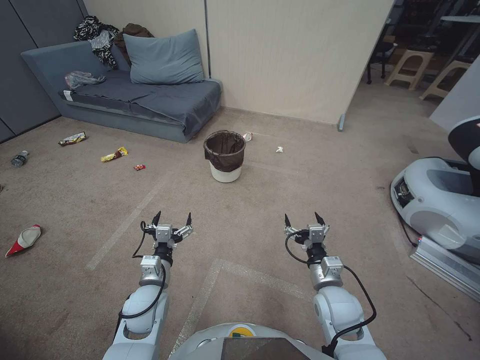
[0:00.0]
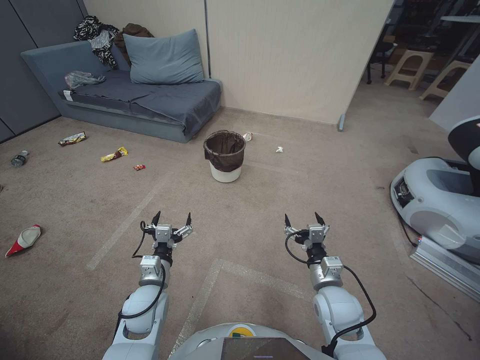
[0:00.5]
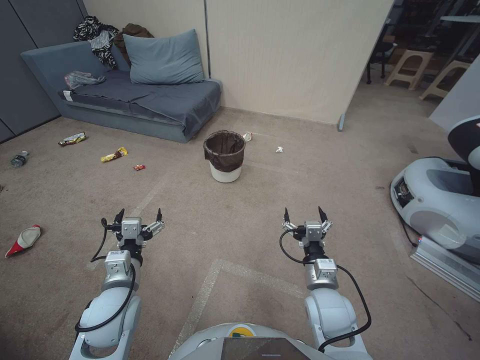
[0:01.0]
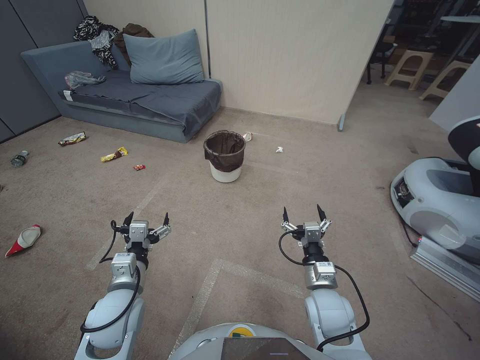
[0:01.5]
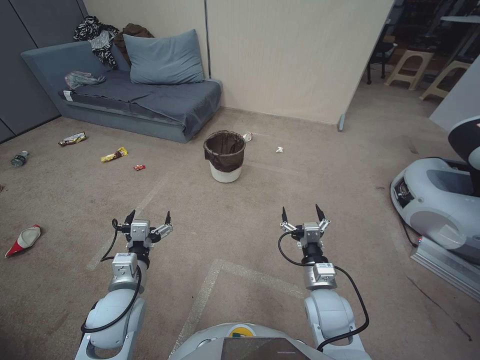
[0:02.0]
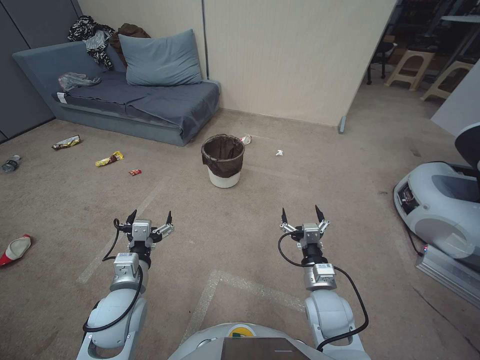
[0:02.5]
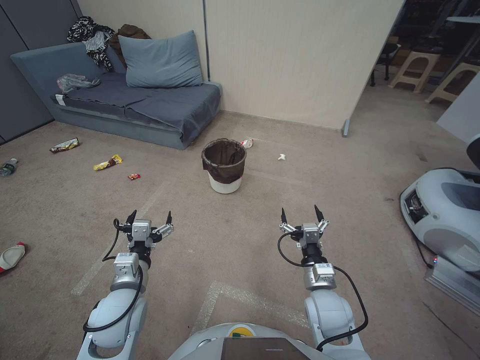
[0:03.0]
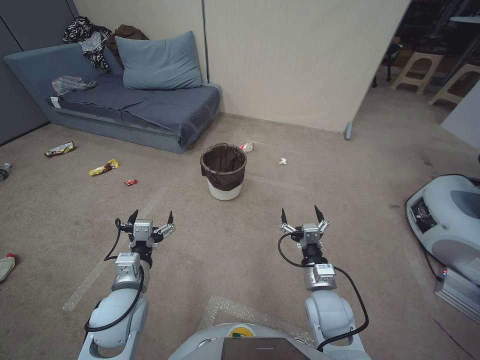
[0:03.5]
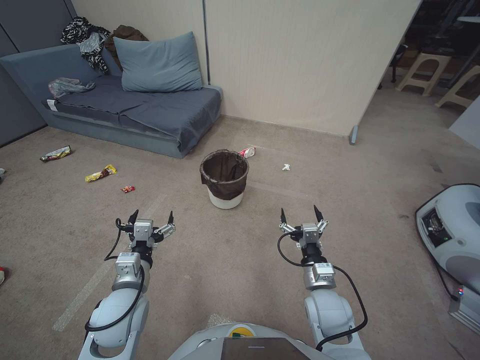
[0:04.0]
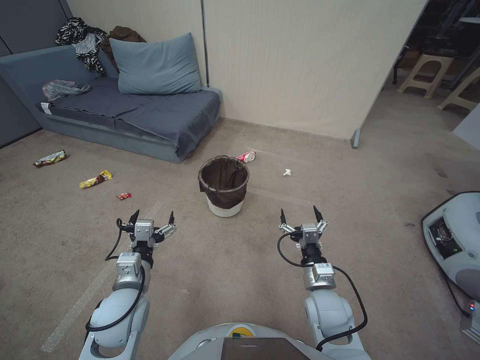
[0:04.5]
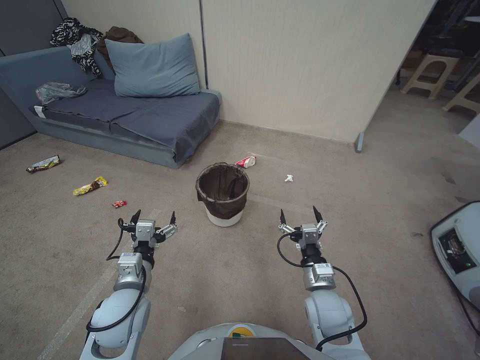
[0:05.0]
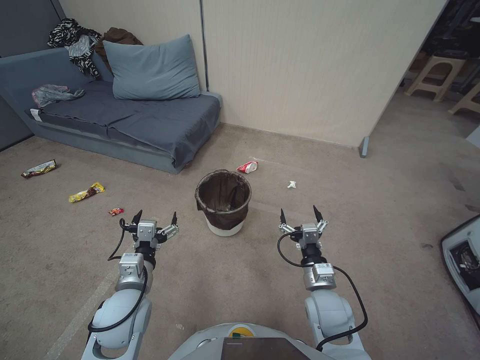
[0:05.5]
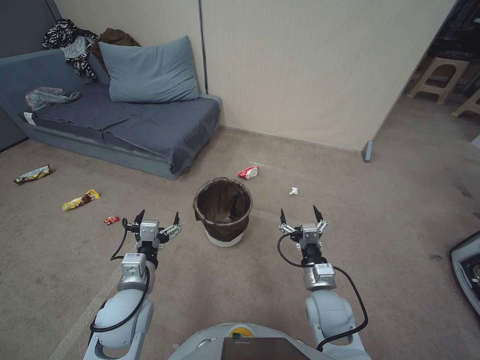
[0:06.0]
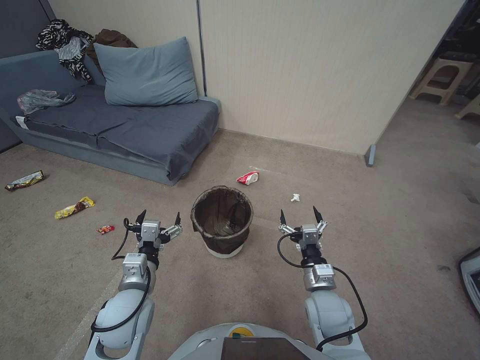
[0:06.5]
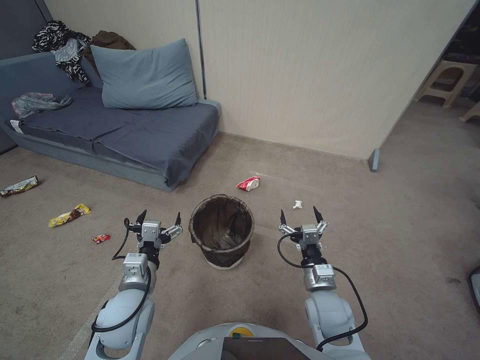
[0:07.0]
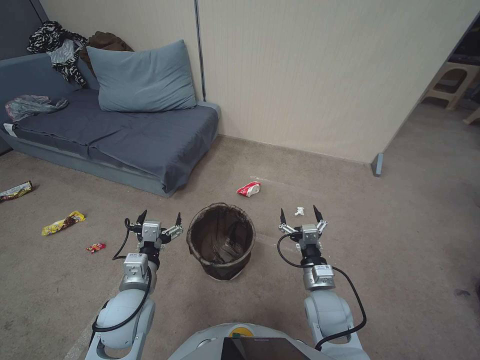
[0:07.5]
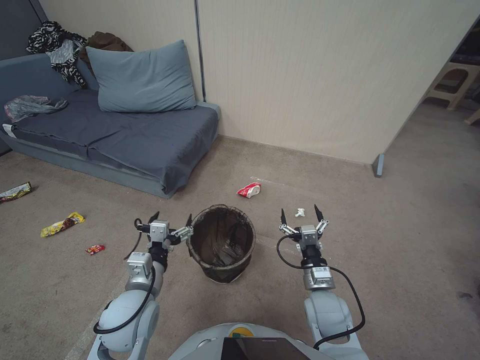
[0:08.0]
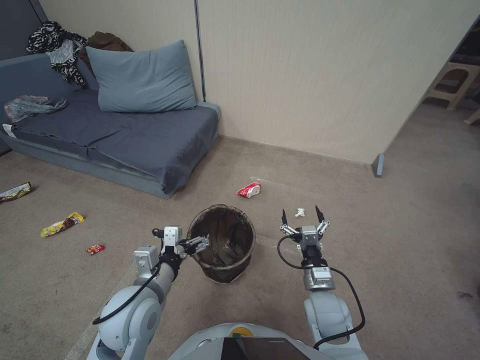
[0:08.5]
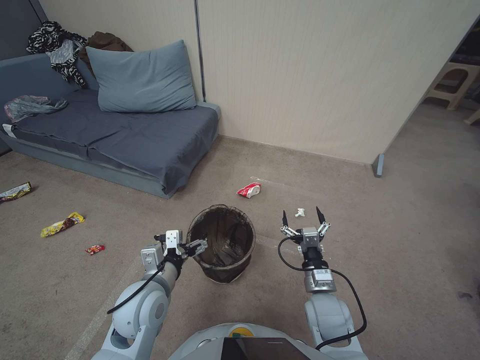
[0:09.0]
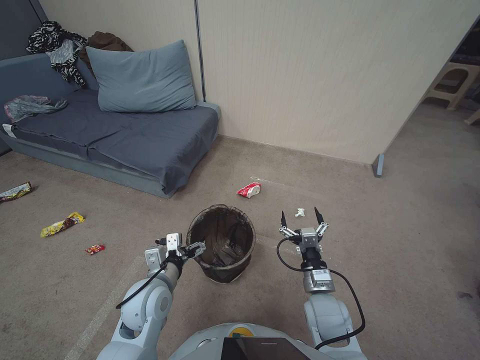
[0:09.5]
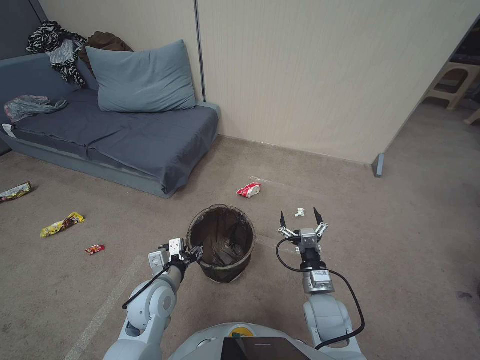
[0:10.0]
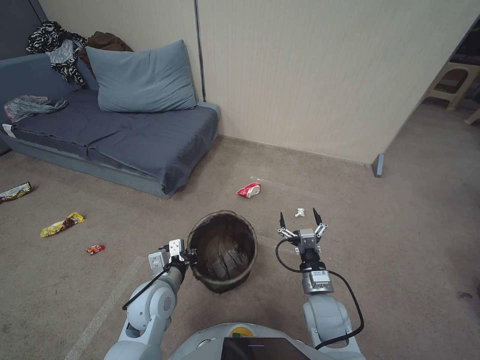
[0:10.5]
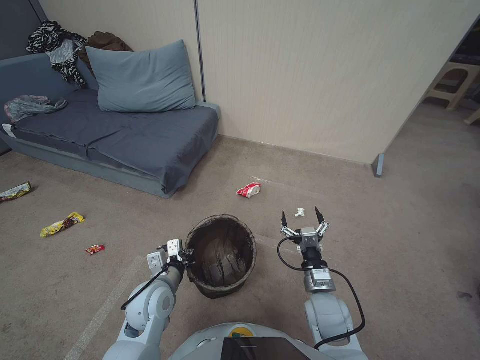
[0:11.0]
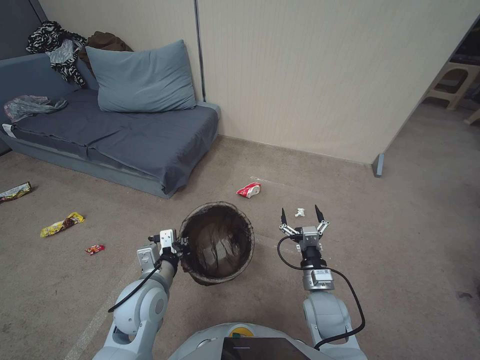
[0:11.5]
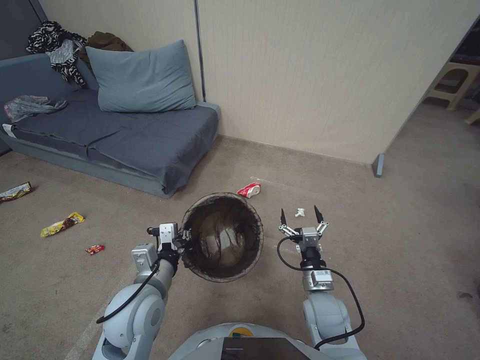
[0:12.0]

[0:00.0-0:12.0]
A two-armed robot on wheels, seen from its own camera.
Task of the whole recording: Pick up the trash bin, then pick up the garbage from the floor and place it into the trash bin.
2.0 to 4.0 s: Both grippers stay about where they are.
6.0 to 8.0 s: Both grippers stay about where they are.
8.0 to 10.0 s: The left gripper ends up roughly 5 cm from where it was, and closes.
10.0 to 12.0 s: The left gripper goes some 10 cm upward, and closes.

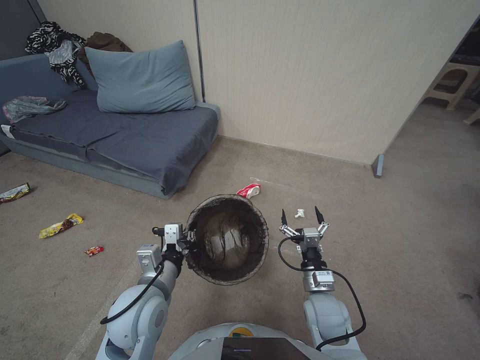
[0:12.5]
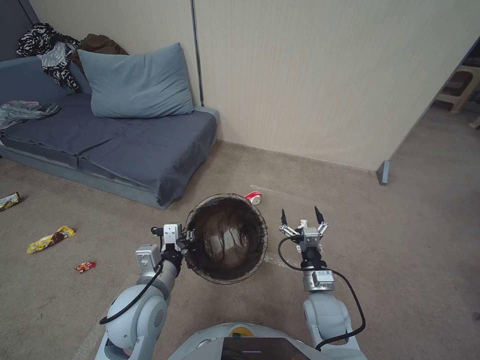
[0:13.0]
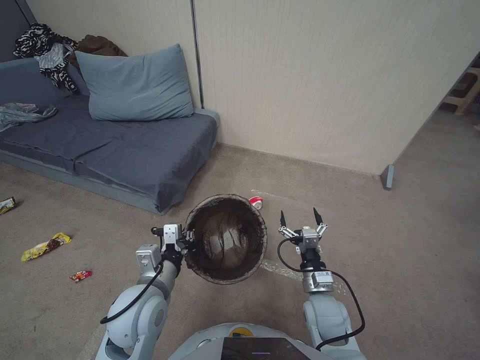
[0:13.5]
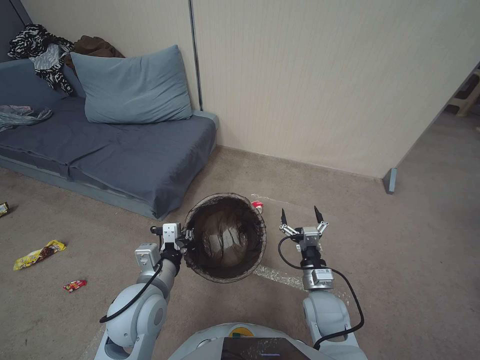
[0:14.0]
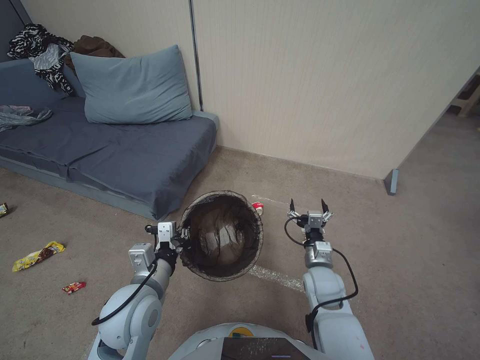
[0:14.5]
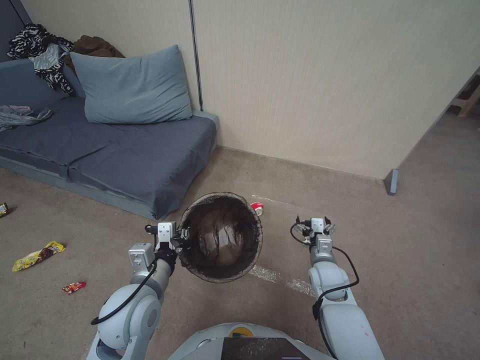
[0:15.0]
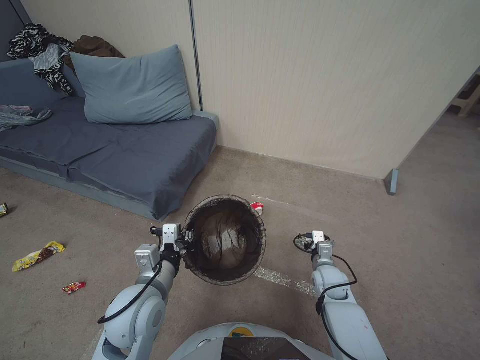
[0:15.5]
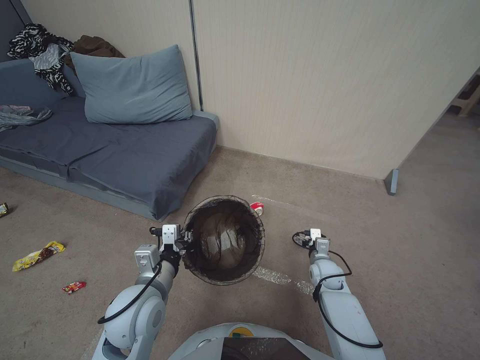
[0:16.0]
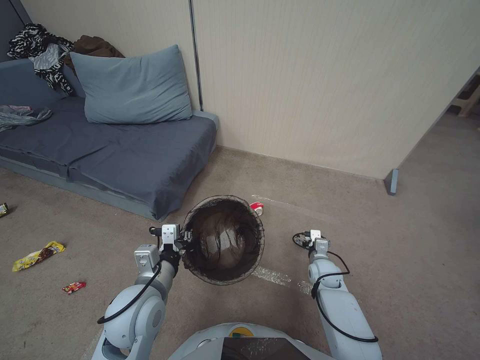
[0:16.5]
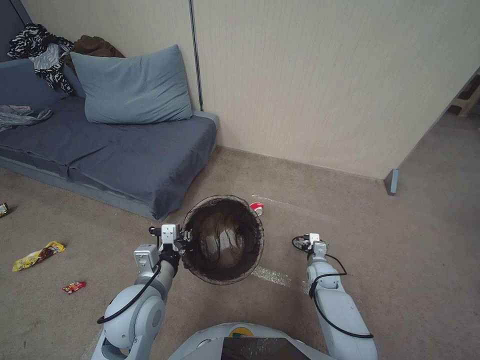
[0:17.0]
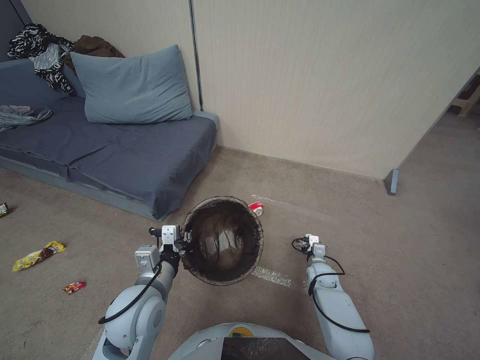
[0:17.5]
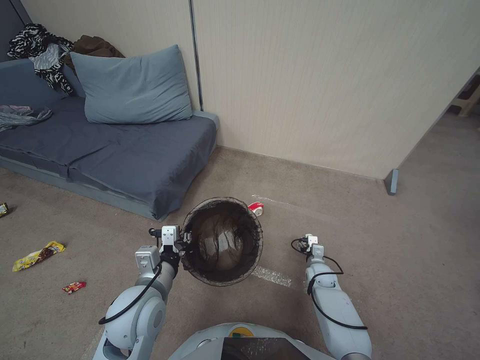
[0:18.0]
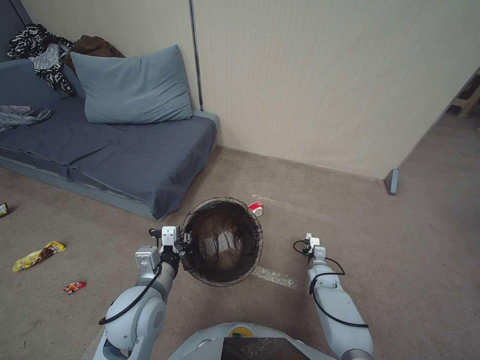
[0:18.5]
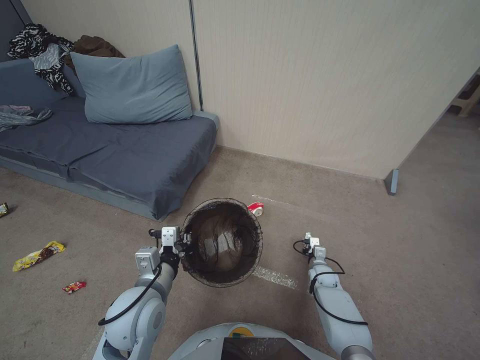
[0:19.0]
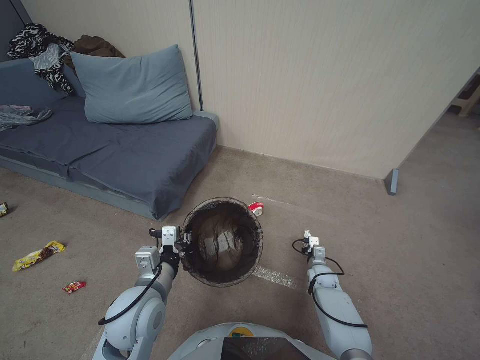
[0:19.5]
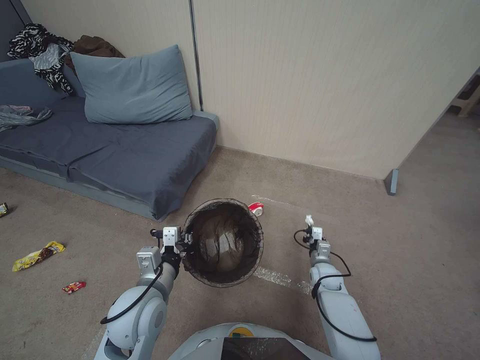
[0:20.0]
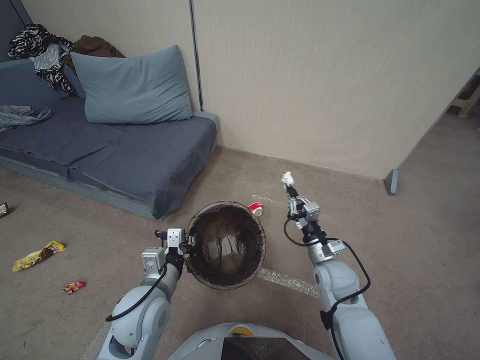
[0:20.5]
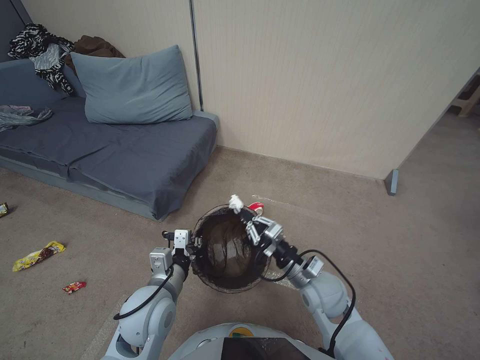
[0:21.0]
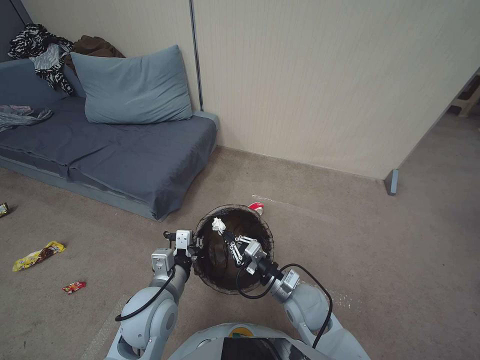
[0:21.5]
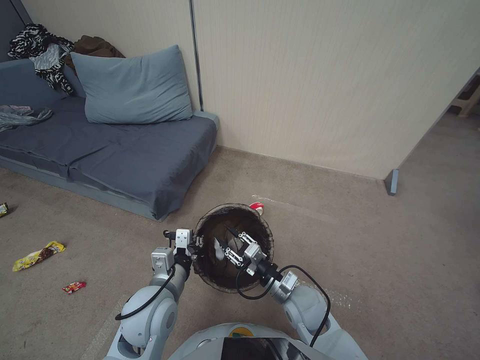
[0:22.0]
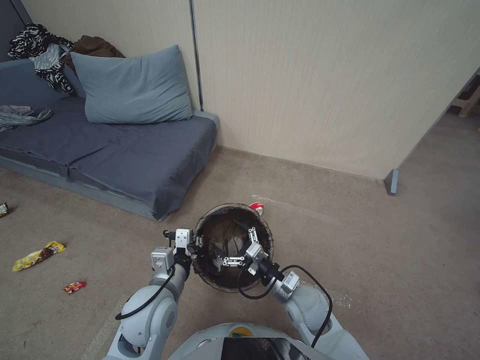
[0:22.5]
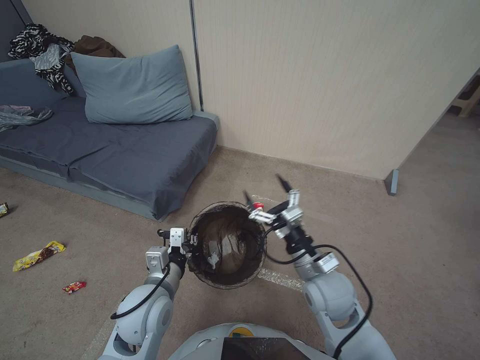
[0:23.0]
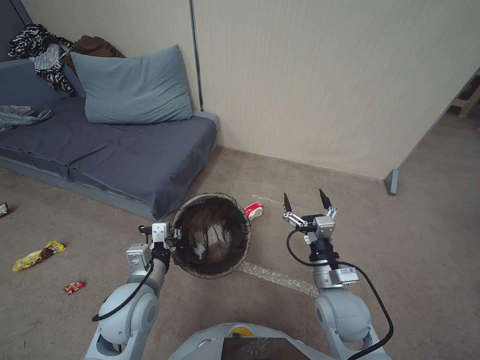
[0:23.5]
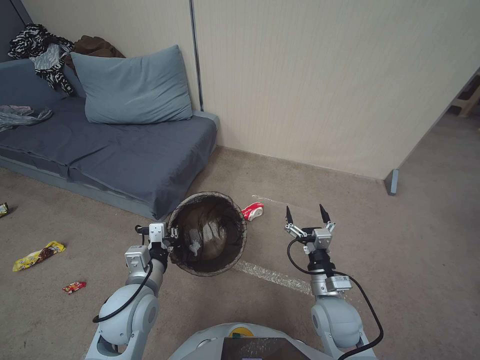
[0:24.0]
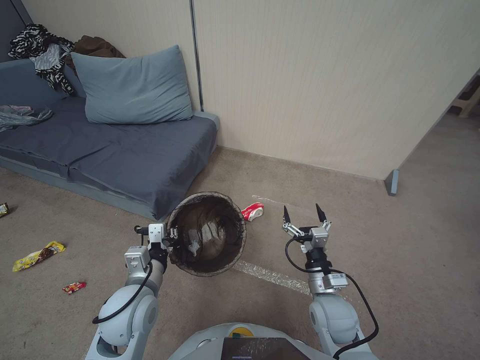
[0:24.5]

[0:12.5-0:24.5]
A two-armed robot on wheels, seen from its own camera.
Task of the whole recording: Pick up the trash bin, then pick up the garbage from the floor and place it into the trash bin.
12.5 to 14.5 s: The grippers stay close to where they were, moving slightly.
14.5 to 16.5 s: The right gripper is displaced forward, downward and to the right by some 15 cm.
16.5 to 18.5 s: The right gripper is displaced downward by approximately 5 cm, and closes its fingers.
18.5 to 20.5 s: The right gripper shifts some 10 cm upward.
20.5 to 22.5 s: The right gripper moves to the left, backward and upward, approximately 15 cm, and opens up.
22.5 to 24.5 s: The right gripper shifts some 5 cm to the right, and travels upward and back again, about 10 cm each way.

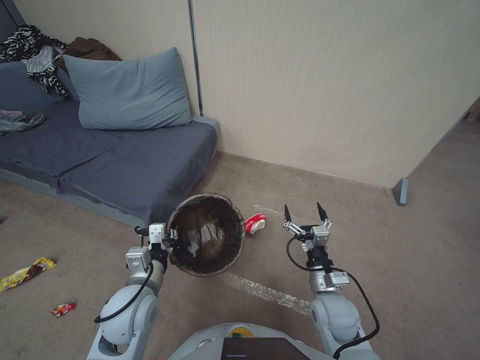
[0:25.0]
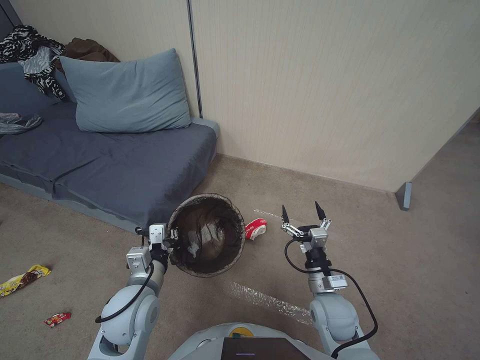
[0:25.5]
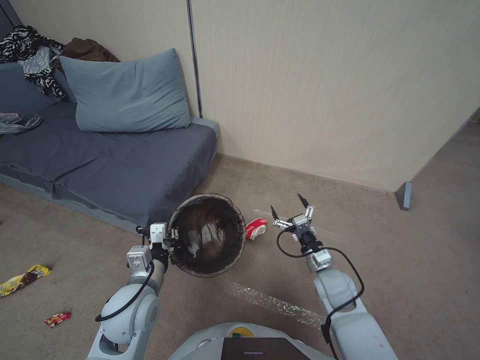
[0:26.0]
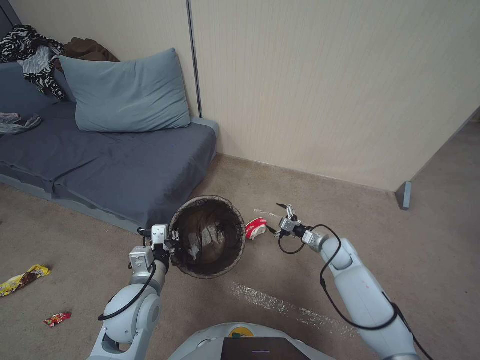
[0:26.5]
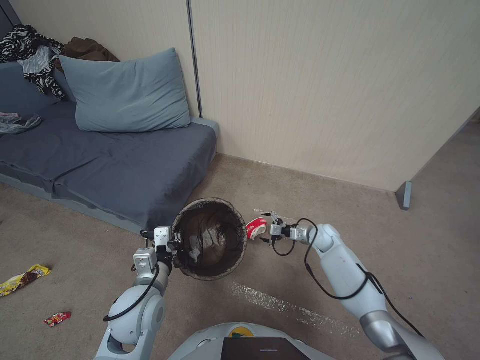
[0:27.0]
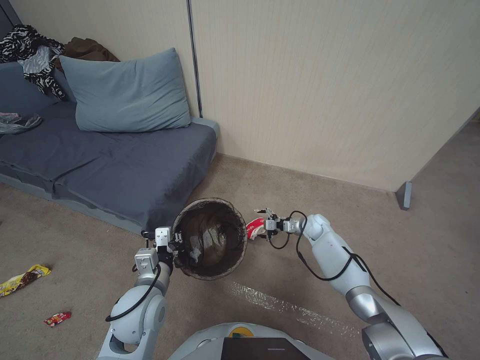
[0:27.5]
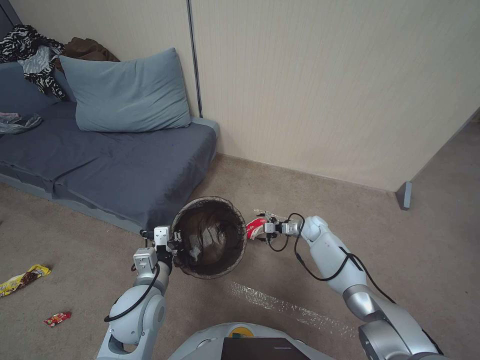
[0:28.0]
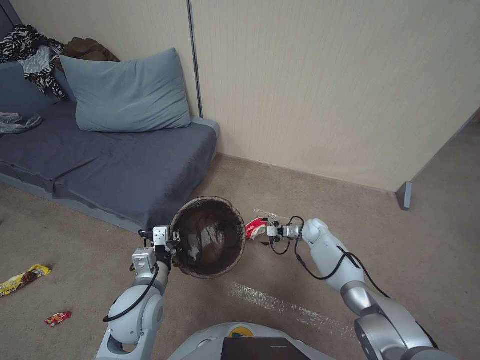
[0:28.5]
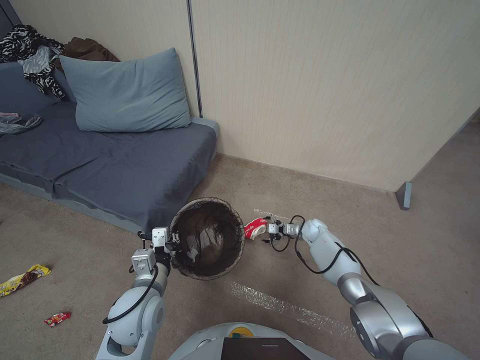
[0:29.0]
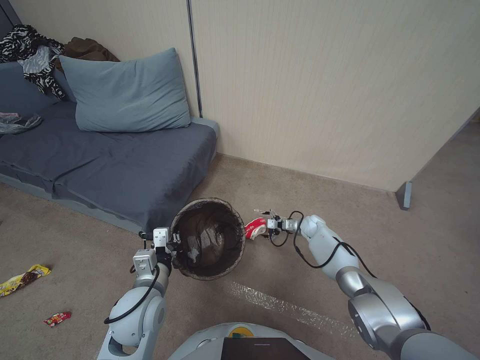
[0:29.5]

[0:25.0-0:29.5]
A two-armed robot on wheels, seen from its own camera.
Task of the whole recording: Pick up the trash bin, then pick up the garbage from the floor and place it into the trash bin.
25.0 to 27.0 s: The right gripper goes roughly 25 cm forward and to the right.
27.0 to 29.5 s: The right gripper moves forward and downward, about 10 cm.
